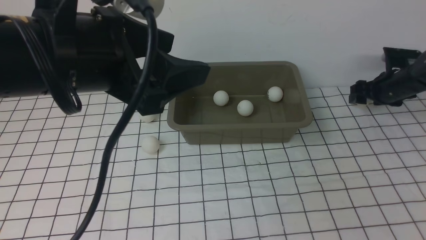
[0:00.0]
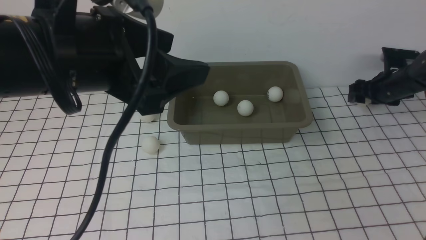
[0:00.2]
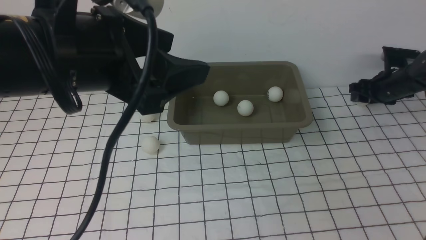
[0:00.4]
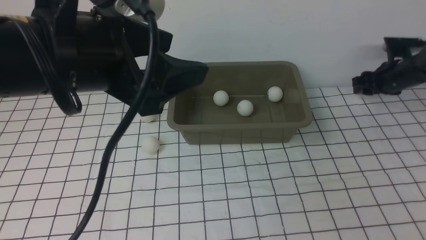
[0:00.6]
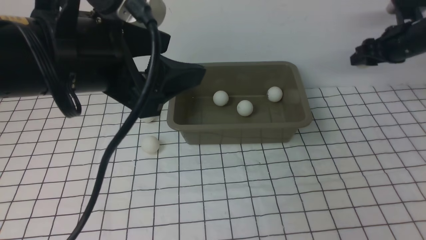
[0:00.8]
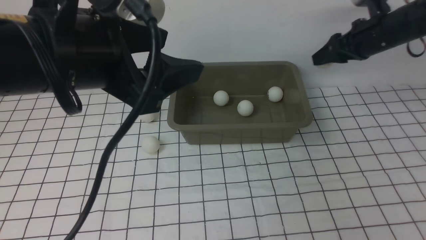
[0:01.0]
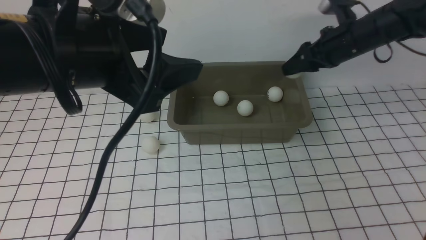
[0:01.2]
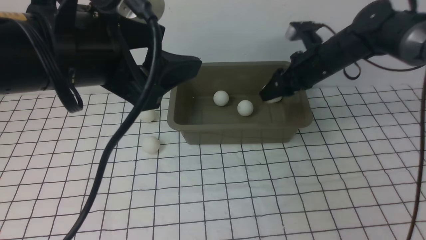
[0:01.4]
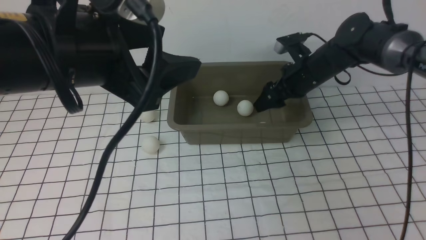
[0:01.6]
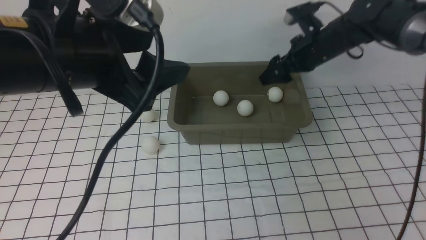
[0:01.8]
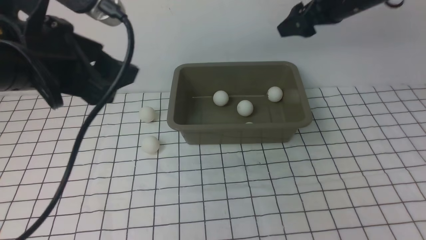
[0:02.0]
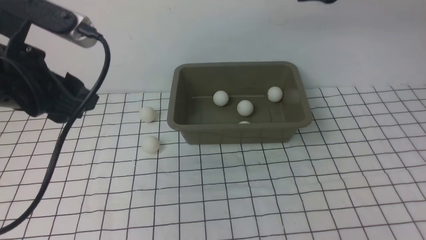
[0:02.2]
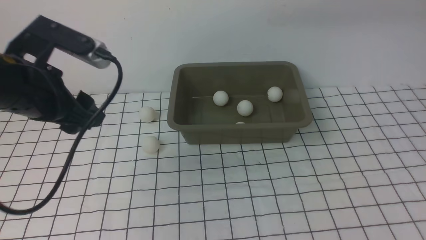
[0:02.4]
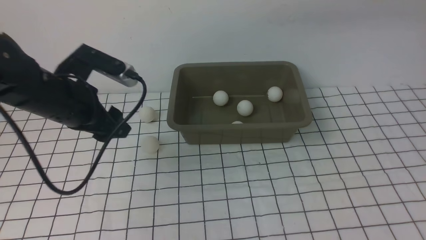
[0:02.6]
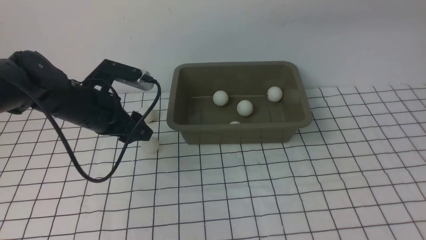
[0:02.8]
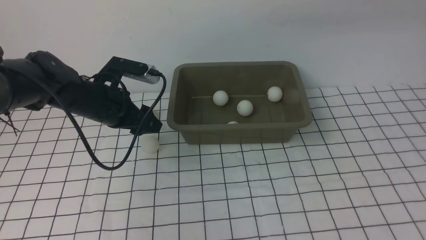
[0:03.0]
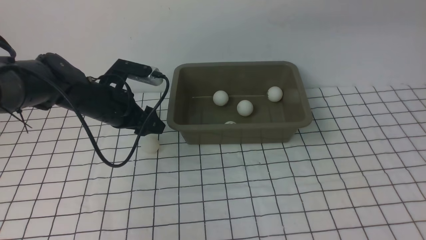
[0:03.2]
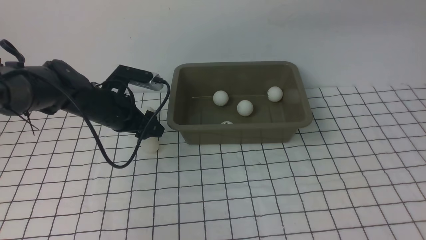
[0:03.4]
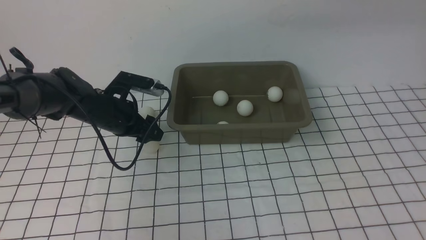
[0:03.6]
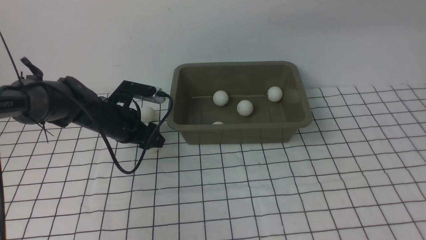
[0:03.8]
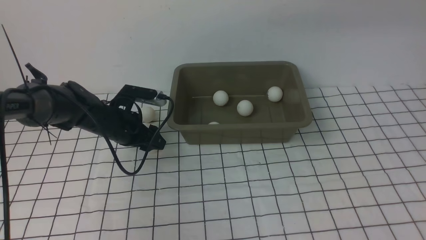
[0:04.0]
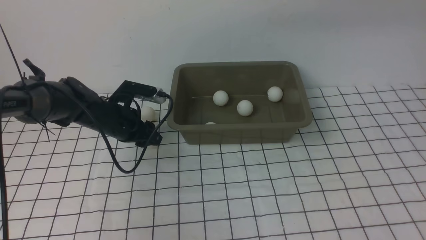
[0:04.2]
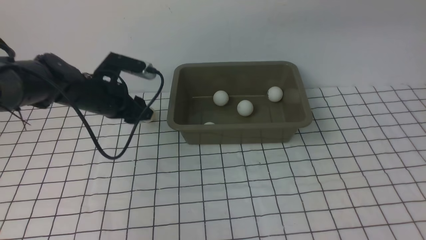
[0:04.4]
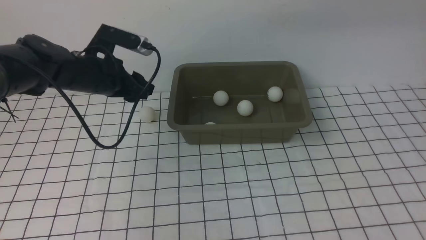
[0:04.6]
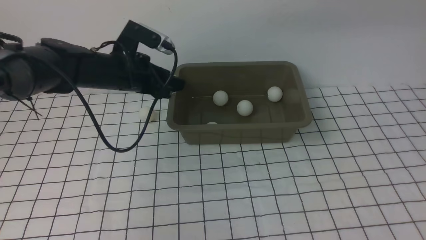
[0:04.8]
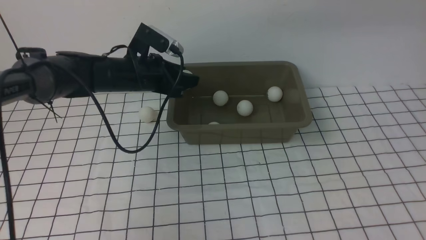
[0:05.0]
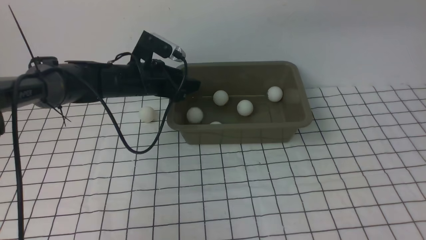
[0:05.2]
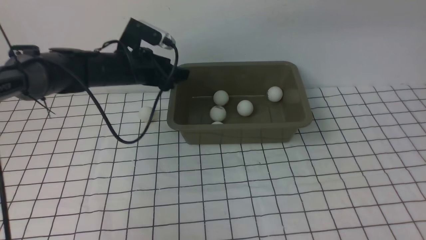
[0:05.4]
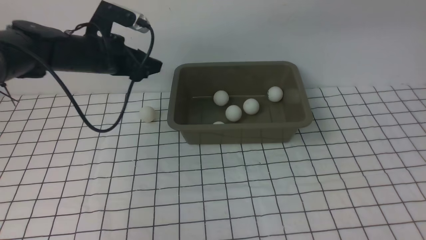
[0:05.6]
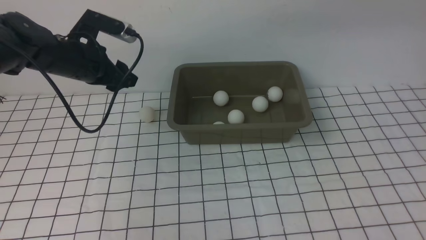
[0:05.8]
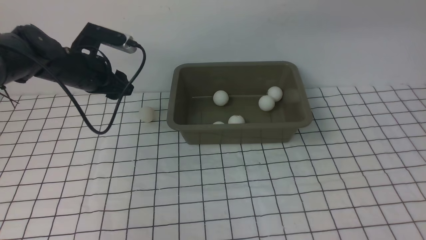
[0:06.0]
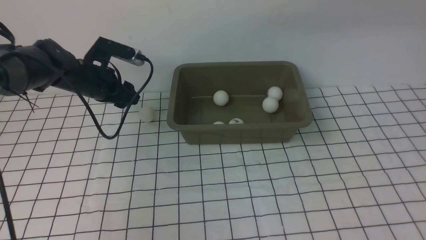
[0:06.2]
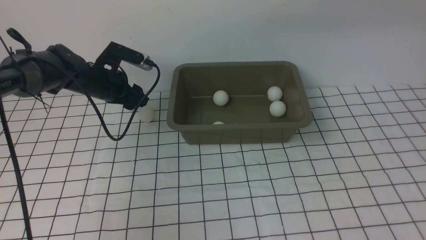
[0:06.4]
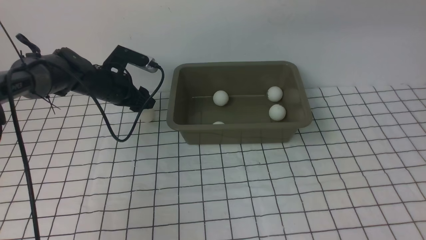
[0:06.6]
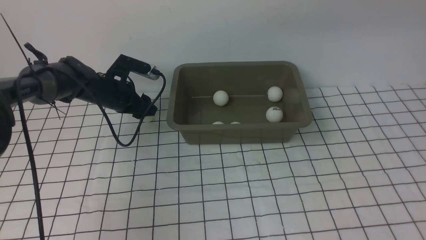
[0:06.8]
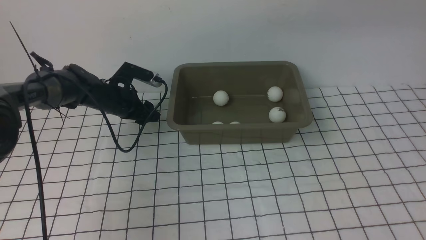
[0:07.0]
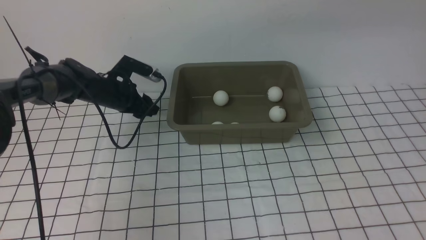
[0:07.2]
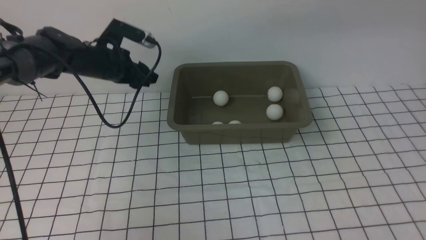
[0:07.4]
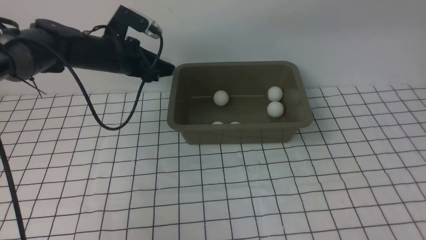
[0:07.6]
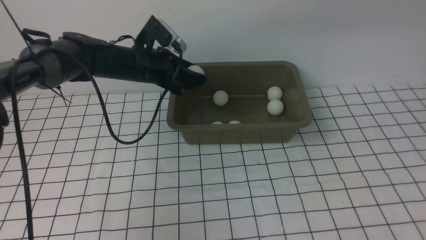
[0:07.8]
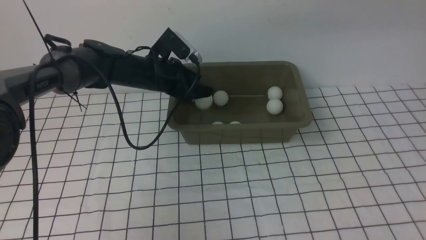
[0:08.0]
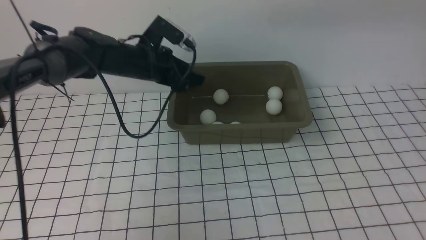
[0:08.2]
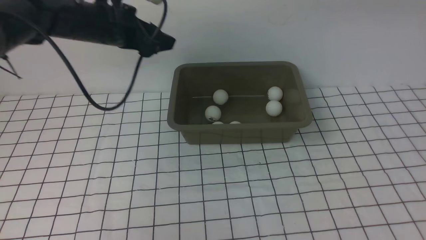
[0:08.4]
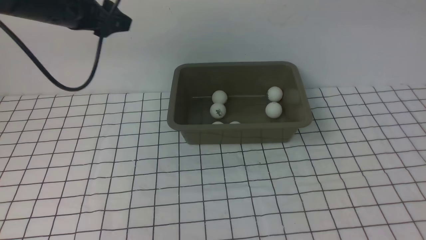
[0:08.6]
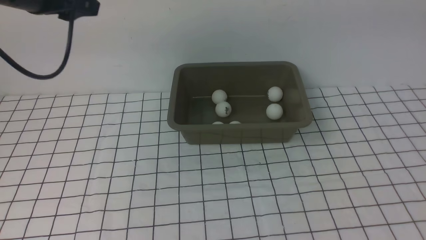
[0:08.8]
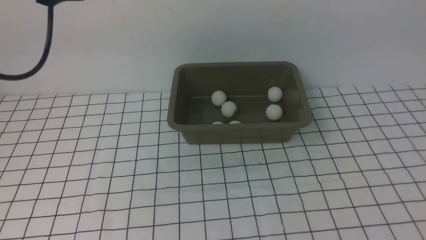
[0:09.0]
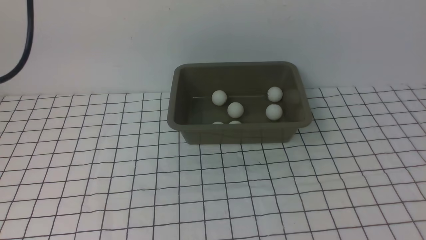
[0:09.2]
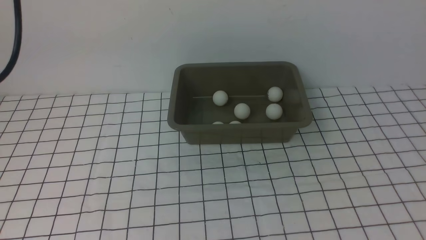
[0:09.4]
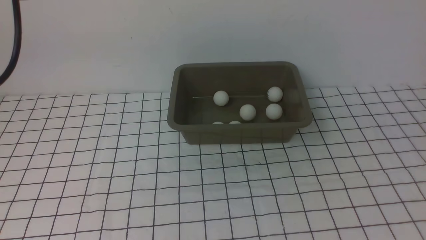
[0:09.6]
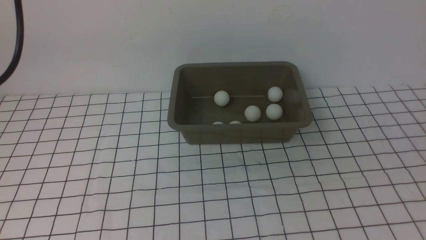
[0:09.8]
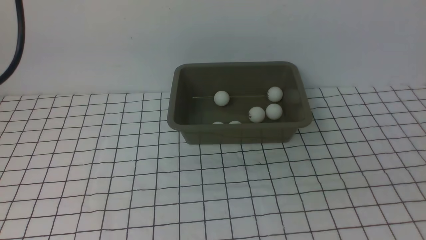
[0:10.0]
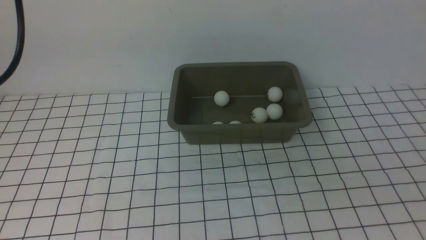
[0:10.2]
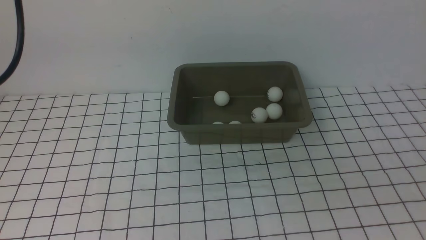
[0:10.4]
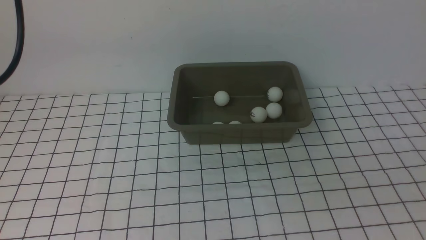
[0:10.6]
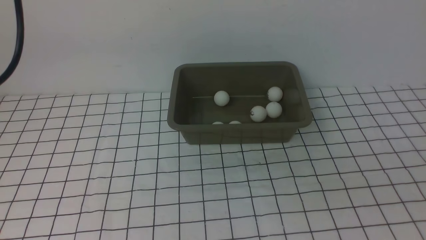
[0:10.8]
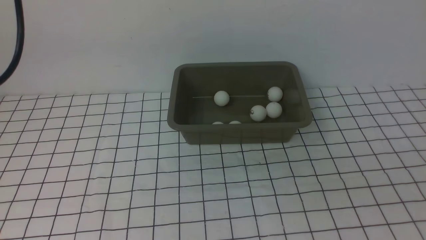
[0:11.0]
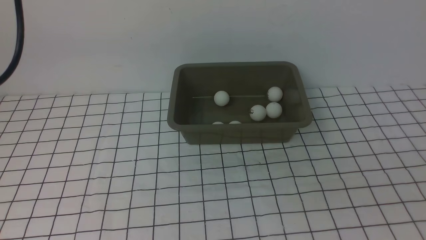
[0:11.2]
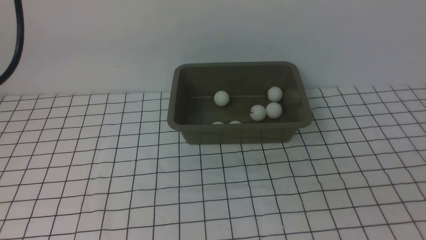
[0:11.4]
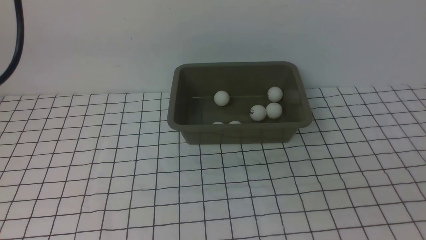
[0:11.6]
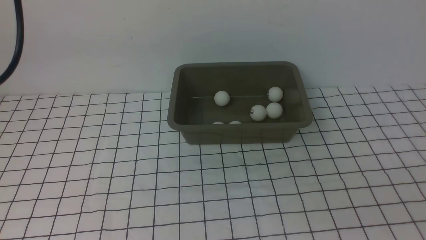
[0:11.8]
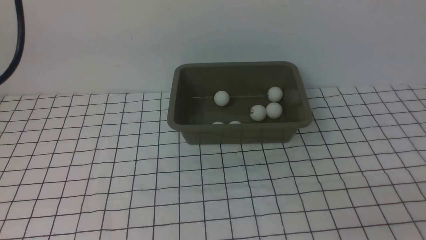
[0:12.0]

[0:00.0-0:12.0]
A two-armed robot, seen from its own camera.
Step, 0:01.0 to 0:01.6: use the right arm to put the table tennis ball into the box.
Step, 0:02.0 to 0:04.4: use the left arm to clamp the table tennis ball closest to it.
Step, 0:04.6 to 0:05.4: use the left arm to put the table tennis ball into the box.
Step, 0:05.6 to 0:07.4: use the left arm to clamp the table tennis ball closest to it.
Step, 0:07.6 to 0:08.2: use the left arm to put the table tennis ball into the box.
0:00.0 to 0:01.6: The right gripper is displaced to the left and upward by some 20 cm.
0:01.6 to 0:03.0: The left gripper heads downward and forward, covering roughly 25 cm; the right gripper is displaced upward and backward by roughly 25 cm.
0:03.0 to 0:04.4: The left gripper travels downward and back again, roughly 10 cm each way.
0:04.4 to 0:06.0: The left gripper ends up about 5 cm from where it was.
0:06.0 to 0:07.6: The left gripper moves to the right, about 10 cm.
0:07.6 to 0:09.0: The right gripper heads backward, covering approximately 30 cm. The left gripper shifts about 30 cm upward and backward.
0:09.0 to 0:10.4: The right gripper travels downward by some 25 cm, and closes up.

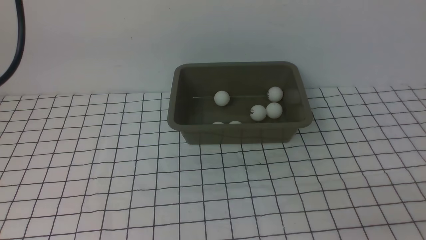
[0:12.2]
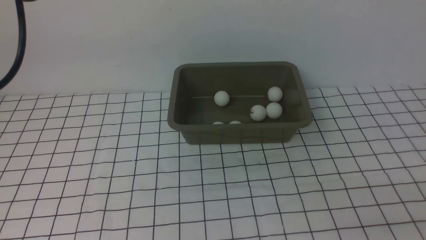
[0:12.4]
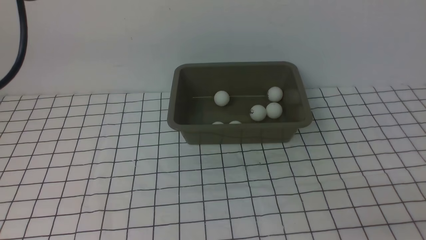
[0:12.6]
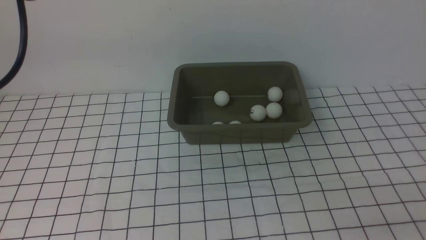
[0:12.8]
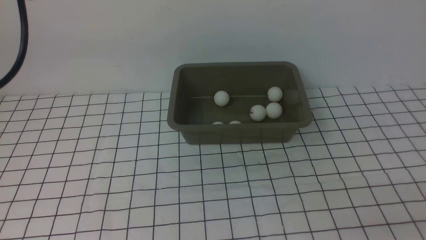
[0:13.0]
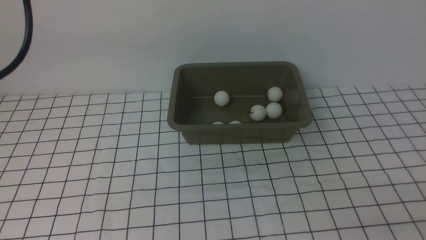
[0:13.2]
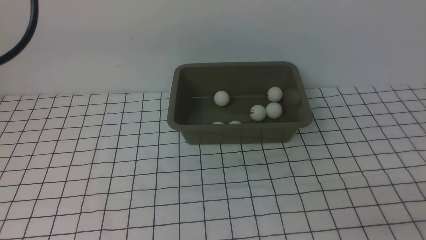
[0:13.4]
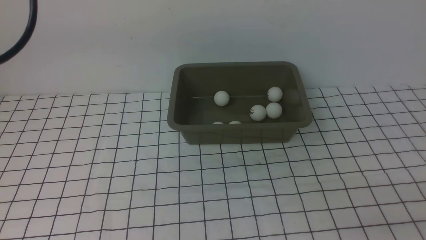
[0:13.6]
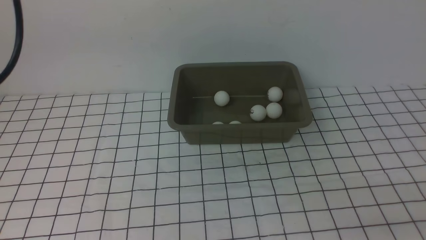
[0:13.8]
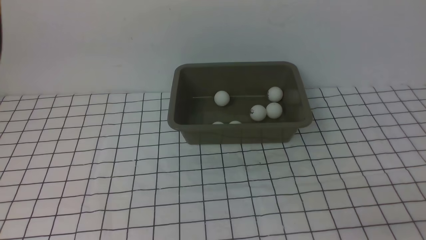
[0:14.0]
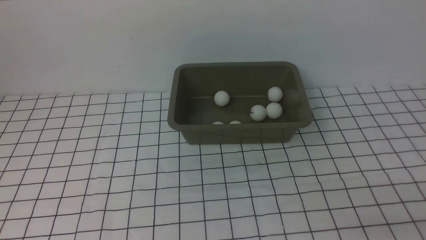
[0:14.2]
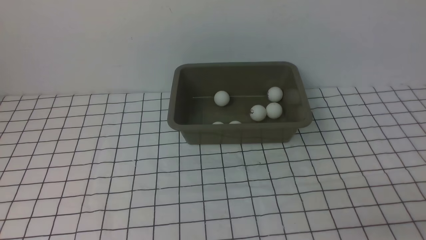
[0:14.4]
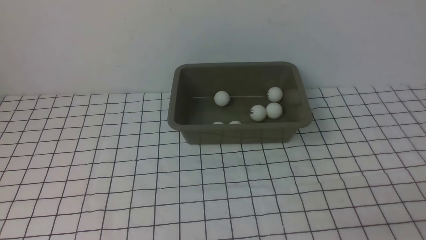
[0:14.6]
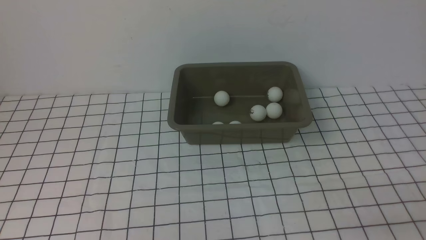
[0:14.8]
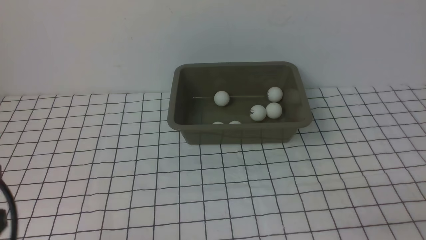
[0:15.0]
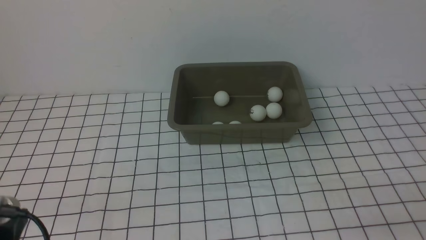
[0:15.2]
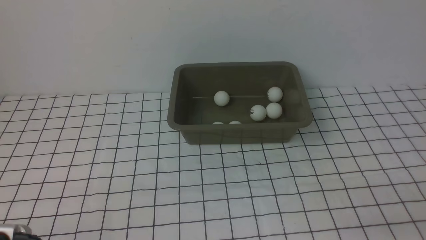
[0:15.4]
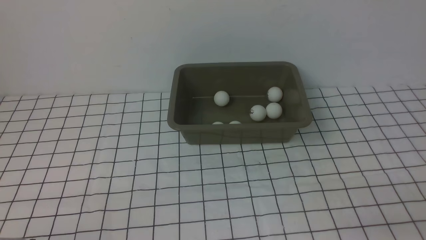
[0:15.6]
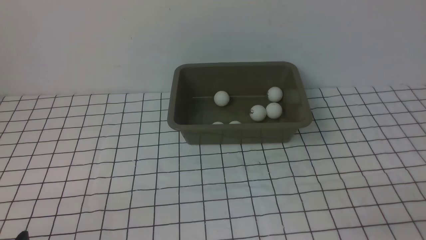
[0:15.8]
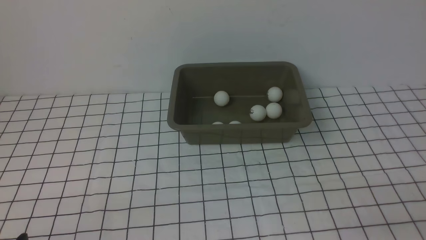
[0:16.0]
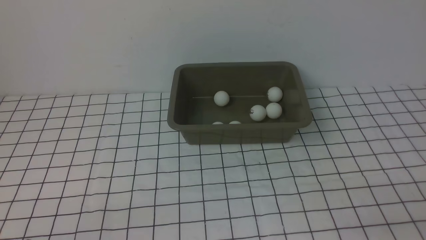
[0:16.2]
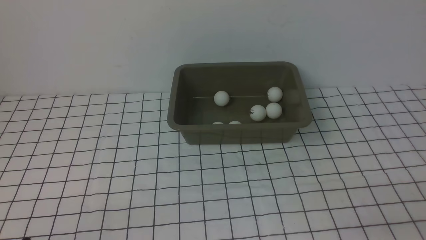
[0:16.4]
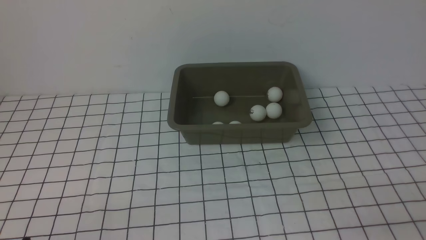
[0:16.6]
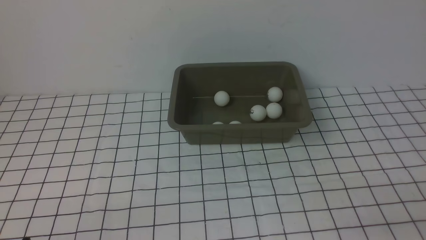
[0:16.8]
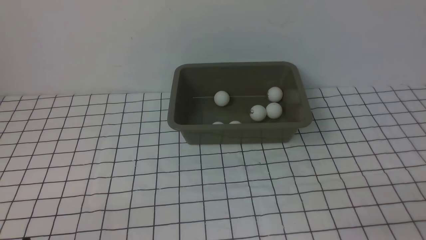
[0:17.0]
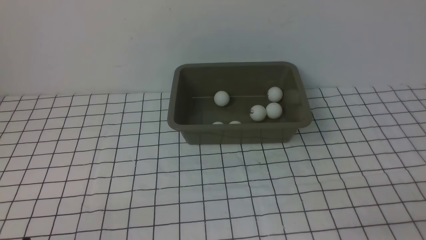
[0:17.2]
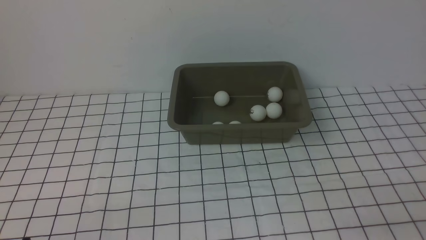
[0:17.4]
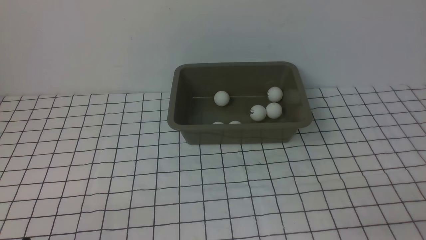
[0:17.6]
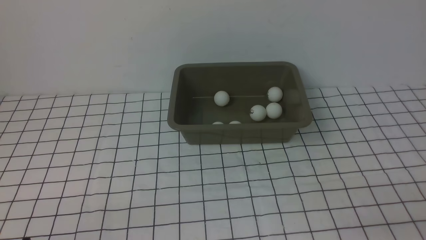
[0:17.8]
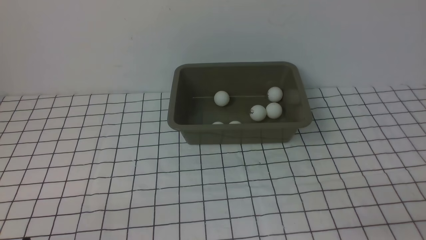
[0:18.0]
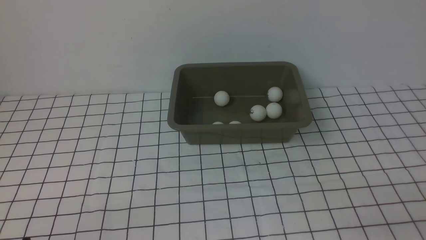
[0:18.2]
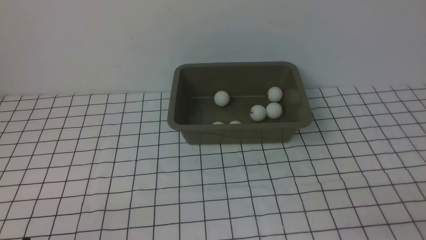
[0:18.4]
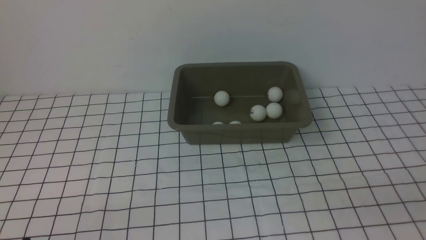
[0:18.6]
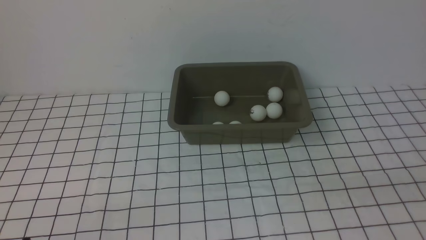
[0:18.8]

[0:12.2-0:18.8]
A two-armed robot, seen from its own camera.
0:13.8 to 0:15.4: The left gripper goes some 35 cm downward and backward.
